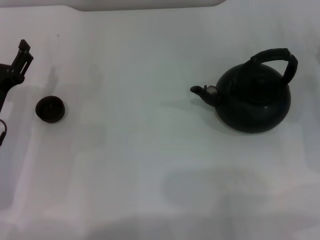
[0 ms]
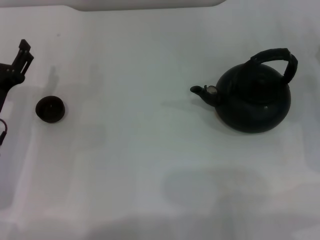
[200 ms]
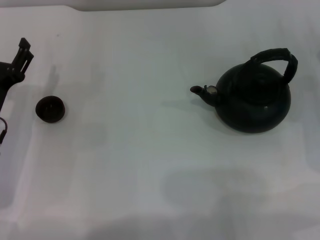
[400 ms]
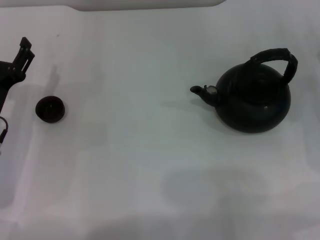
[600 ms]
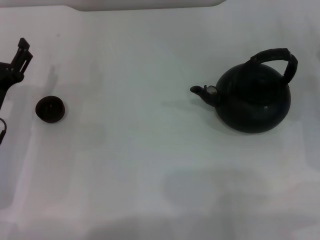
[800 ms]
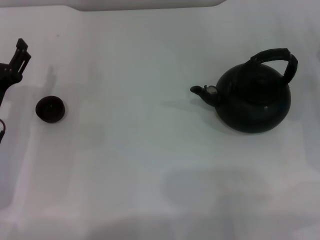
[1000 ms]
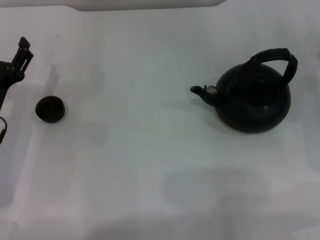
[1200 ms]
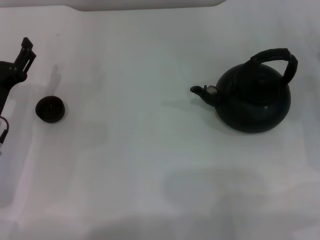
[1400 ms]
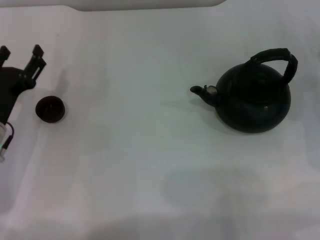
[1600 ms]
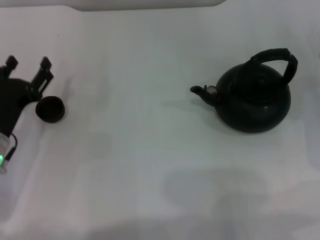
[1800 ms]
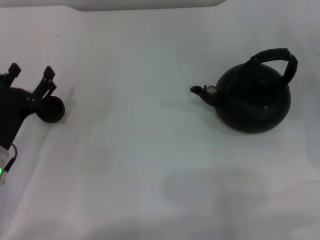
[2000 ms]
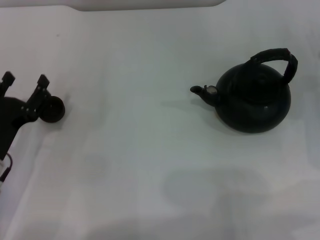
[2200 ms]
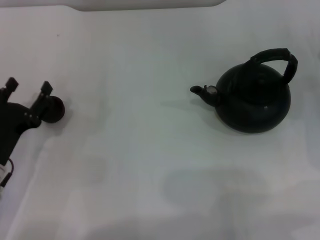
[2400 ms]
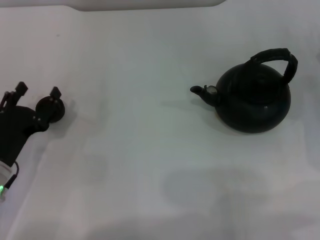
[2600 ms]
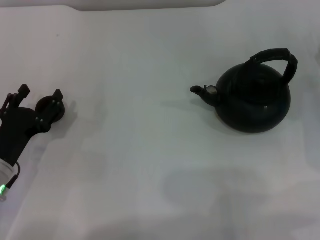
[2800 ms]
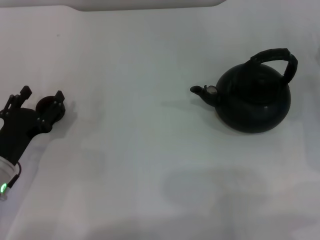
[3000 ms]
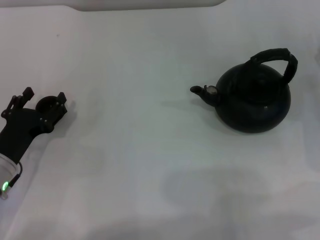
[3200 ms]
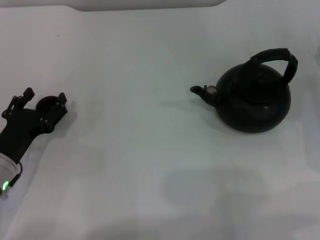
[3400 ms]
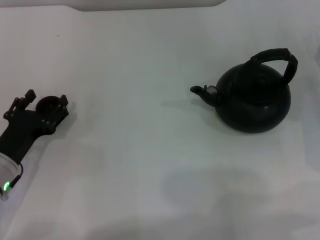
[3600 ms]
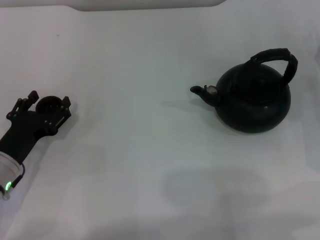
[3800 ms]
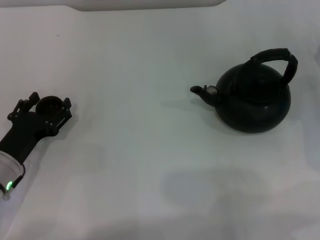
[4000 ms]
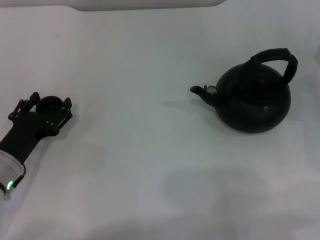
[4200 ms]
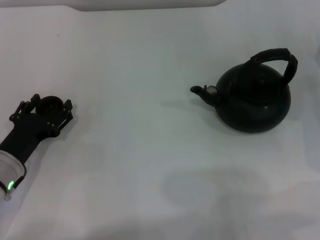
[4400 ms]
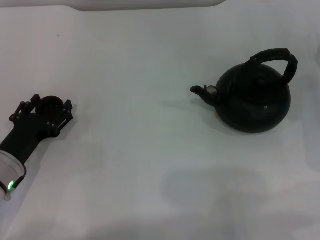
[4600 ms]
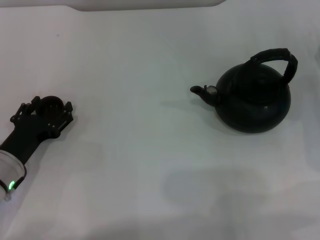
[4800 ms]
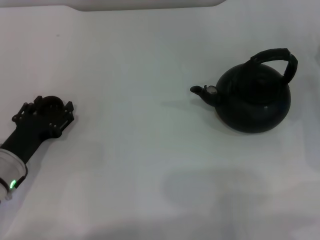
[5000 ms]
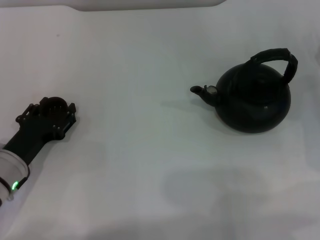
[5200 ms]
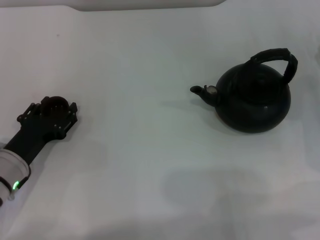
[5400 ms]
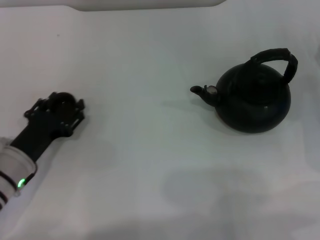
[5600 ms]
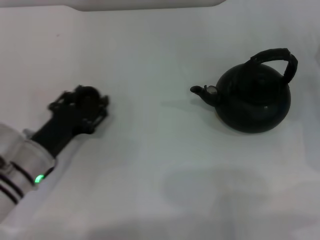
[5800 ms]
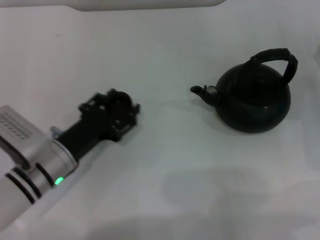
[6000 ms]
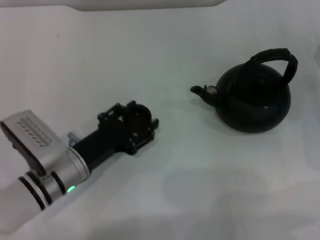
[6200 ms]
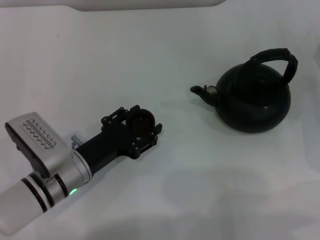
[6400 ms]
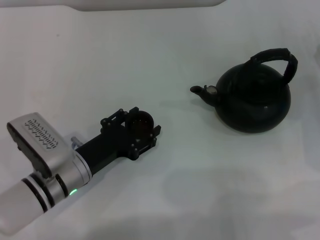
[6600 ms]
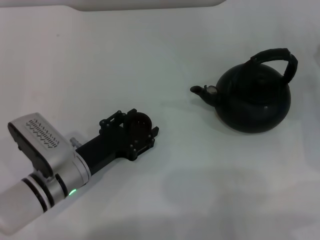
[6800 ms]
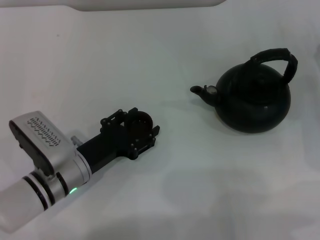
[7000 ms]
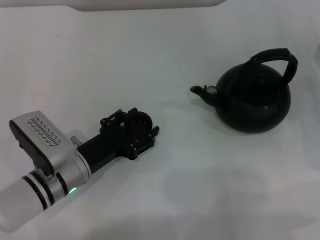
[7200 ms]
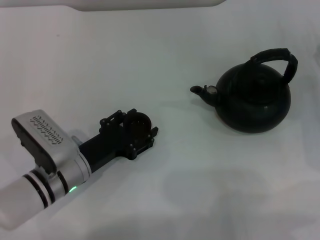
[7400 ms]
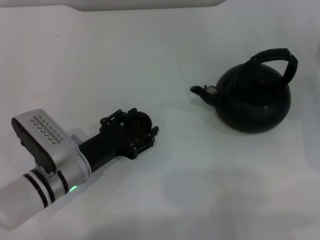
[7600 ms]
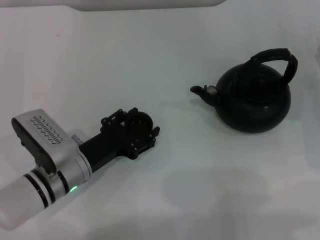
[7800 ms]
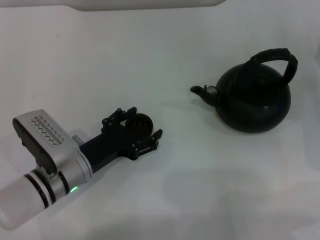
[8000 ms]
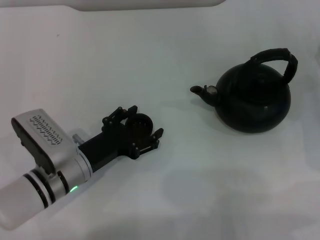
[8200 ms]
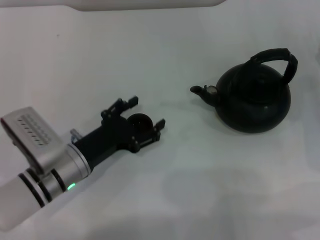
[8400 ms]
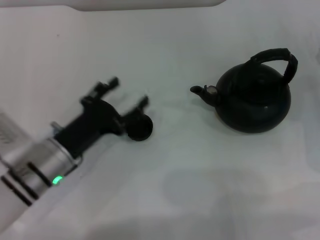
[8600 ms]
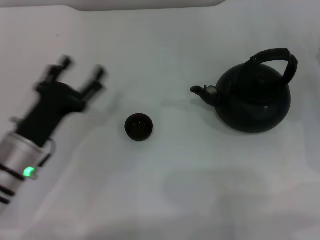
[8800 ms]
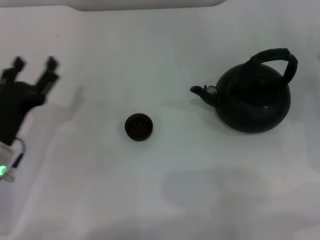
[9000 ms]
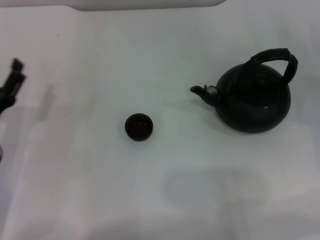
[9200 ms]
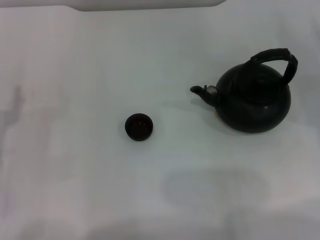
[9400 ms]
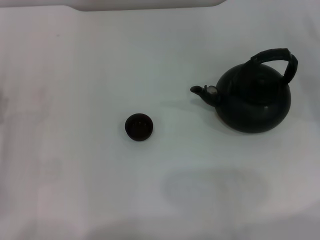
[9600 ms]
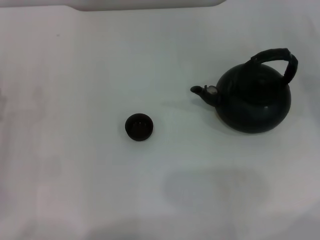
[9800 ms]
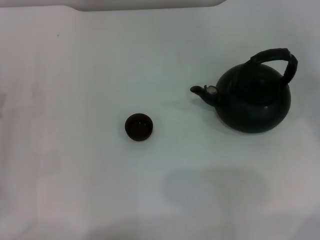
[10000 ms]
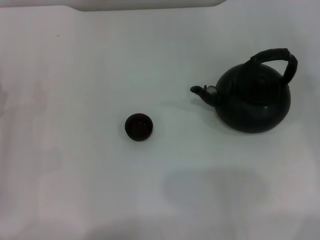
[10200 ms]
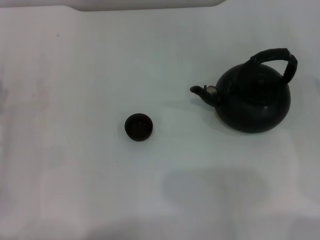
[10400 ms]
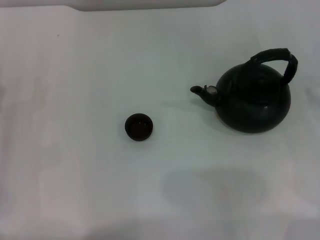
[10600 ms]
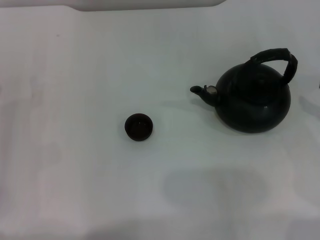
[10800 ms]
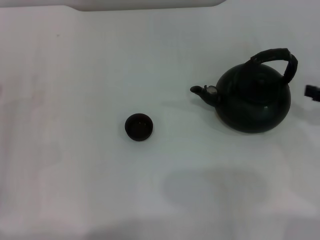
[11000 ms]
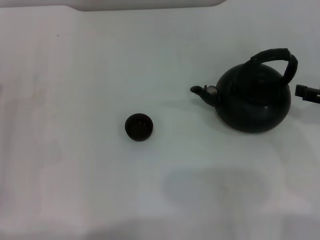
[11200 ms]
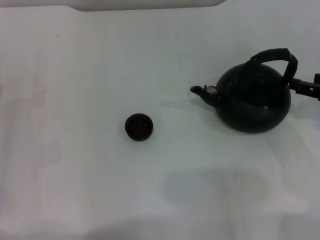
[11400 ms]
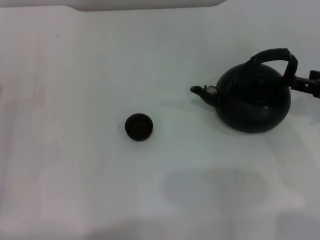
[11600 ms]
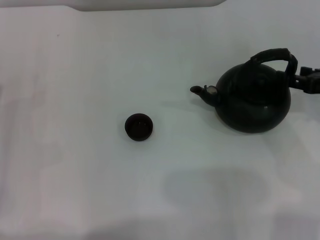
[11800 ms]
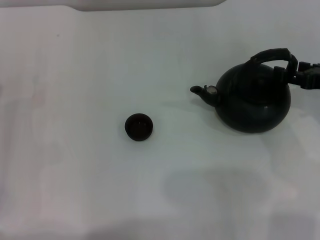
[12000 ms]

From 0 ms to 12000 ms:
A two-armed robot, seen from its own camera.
Task of the whole recording: Grasp the handle of the teapot with one hand and pour tea into the teacup.
Step, from 0 ms to 5600 ms: Pick up the teacup with the left gripper.
Step, from 5800 ms to 8200 ms: Place the teacup in the center of view with the left gripper.
From 0 ms to 1600 ms: Both grippers stay about where they are.
From 1600 ms to 3000 ms: The left gripper changes place by roughly 5 cm.
From 3000 ms to 4400 ms: The grippers make only small movements.
From 4400 ms to 6000 ms: The left gripper travels to the right by some 5 cm, and closes up.
From 6000 ms to 7600 ms: The grippers stay close to where they were, moving slightly.
From 7600 ms to 9000 ms: The left gripper heads to the left, covering some 10 cm, and opens its fingers.
From 9000 ms to 10400 ms: The left gripper moves to the left, approximately 5 cm.
From 10400 ms to 12000 ms: The right gripper travels to the left by about 5 cm.

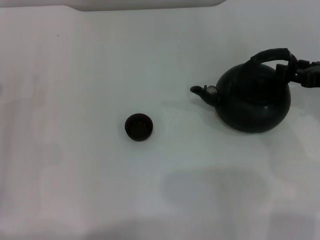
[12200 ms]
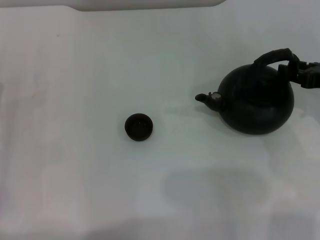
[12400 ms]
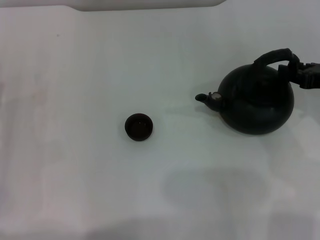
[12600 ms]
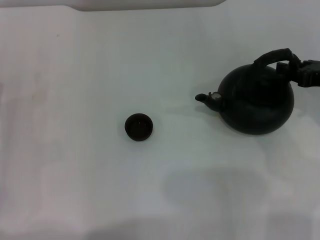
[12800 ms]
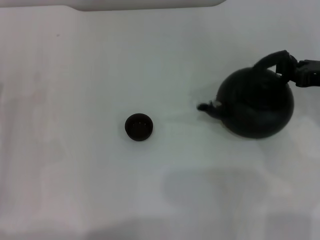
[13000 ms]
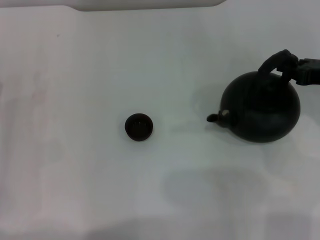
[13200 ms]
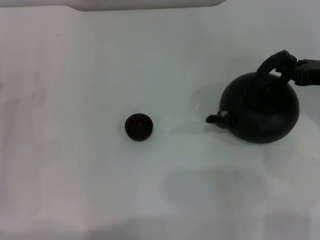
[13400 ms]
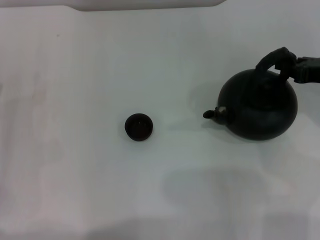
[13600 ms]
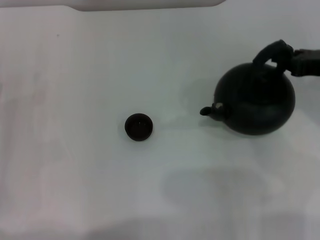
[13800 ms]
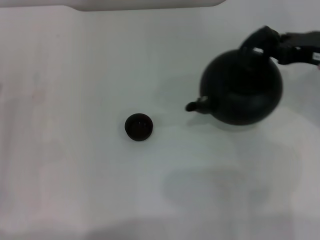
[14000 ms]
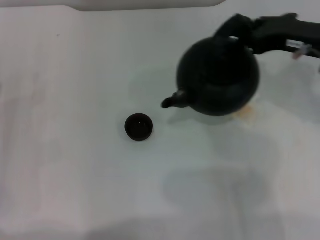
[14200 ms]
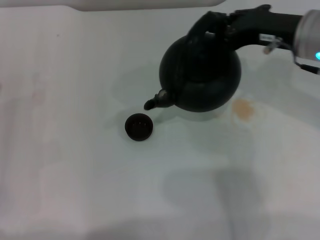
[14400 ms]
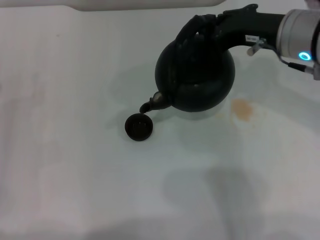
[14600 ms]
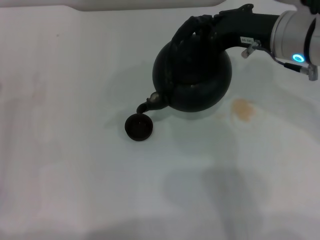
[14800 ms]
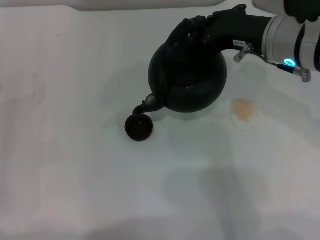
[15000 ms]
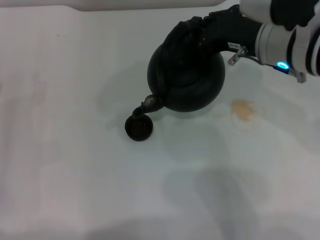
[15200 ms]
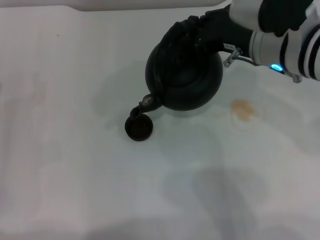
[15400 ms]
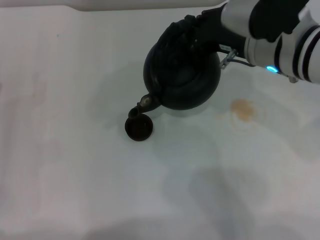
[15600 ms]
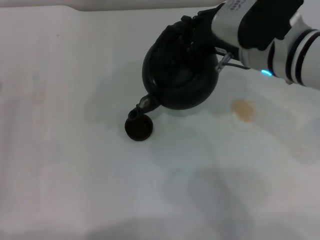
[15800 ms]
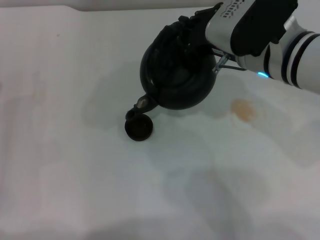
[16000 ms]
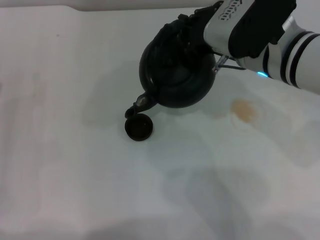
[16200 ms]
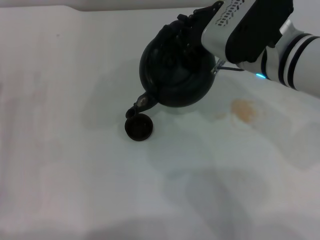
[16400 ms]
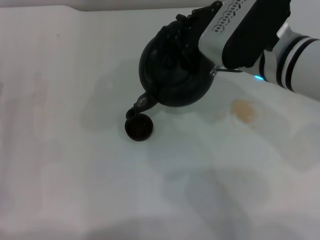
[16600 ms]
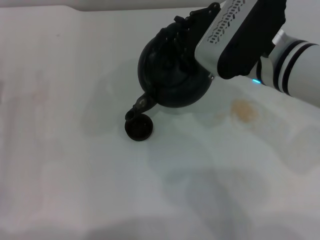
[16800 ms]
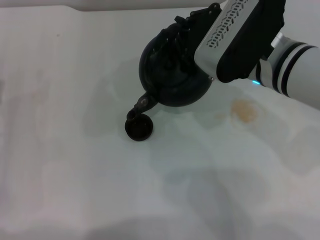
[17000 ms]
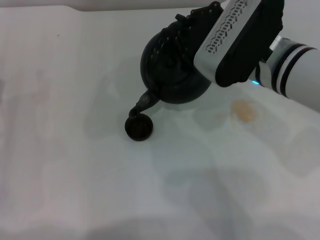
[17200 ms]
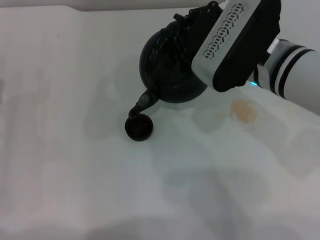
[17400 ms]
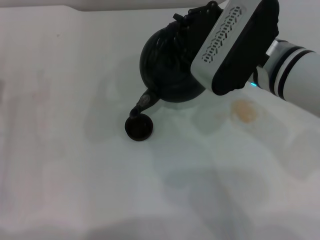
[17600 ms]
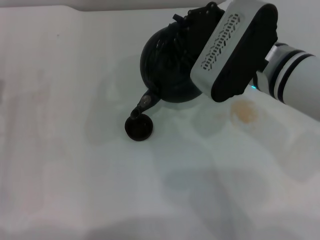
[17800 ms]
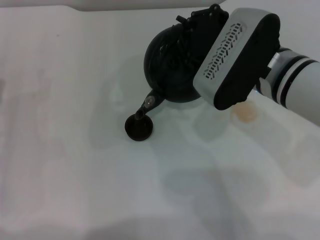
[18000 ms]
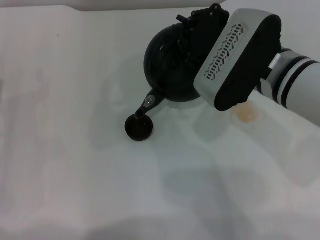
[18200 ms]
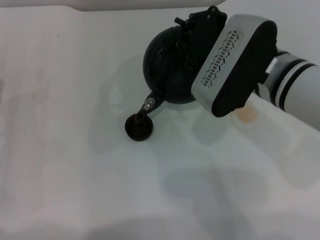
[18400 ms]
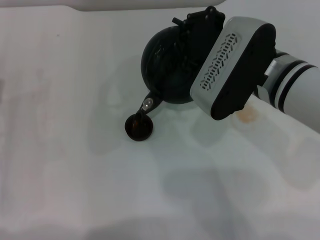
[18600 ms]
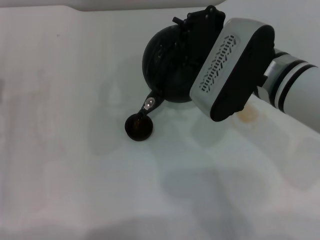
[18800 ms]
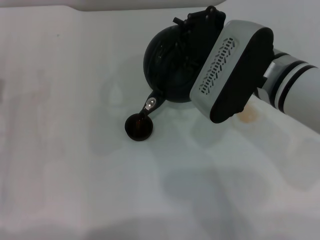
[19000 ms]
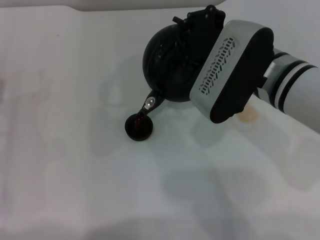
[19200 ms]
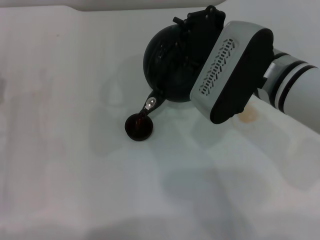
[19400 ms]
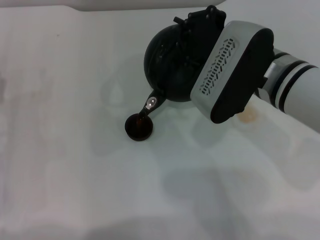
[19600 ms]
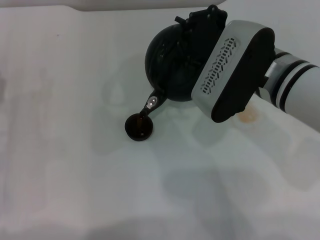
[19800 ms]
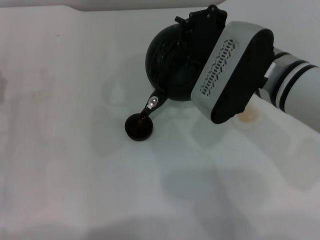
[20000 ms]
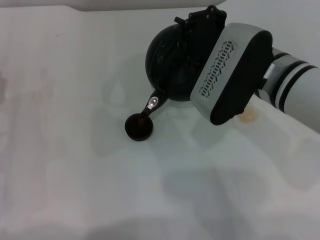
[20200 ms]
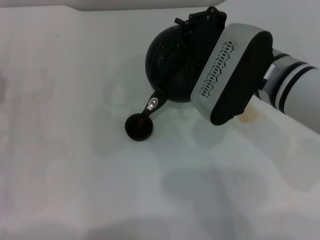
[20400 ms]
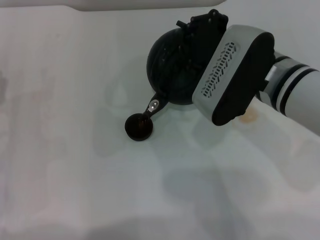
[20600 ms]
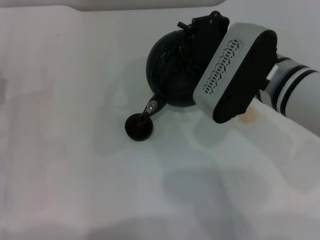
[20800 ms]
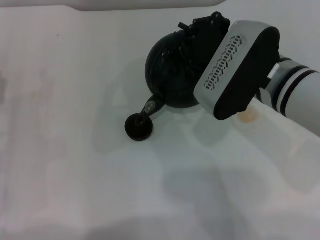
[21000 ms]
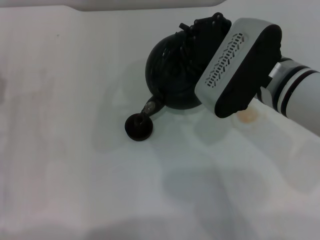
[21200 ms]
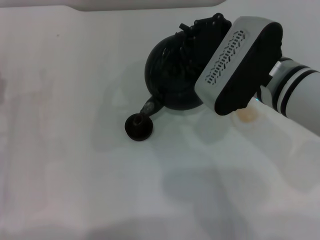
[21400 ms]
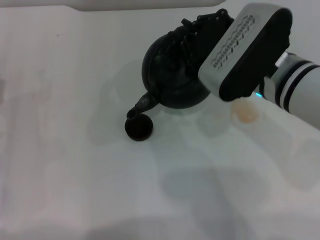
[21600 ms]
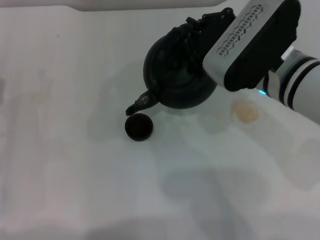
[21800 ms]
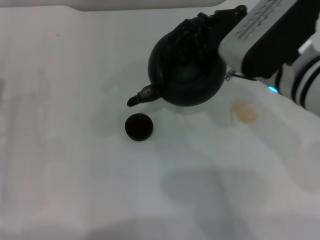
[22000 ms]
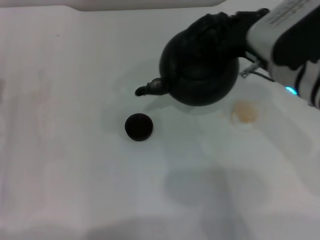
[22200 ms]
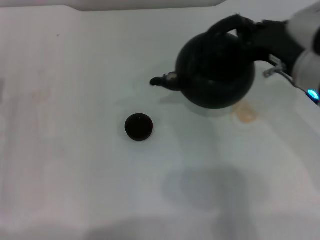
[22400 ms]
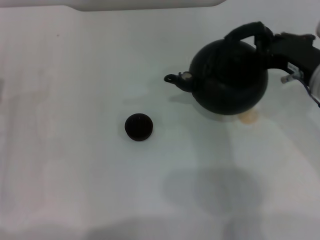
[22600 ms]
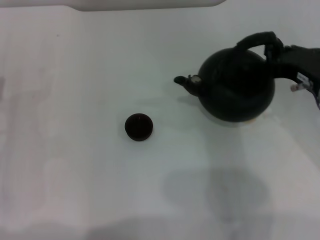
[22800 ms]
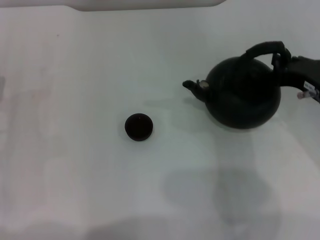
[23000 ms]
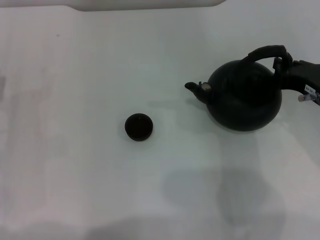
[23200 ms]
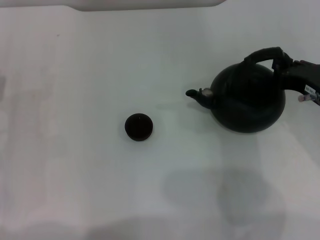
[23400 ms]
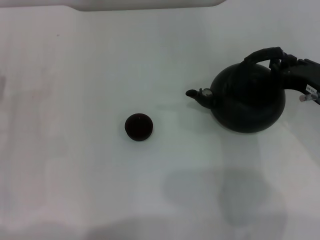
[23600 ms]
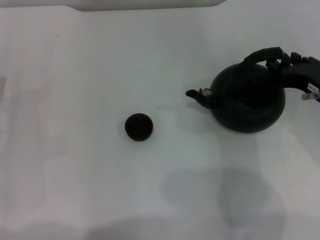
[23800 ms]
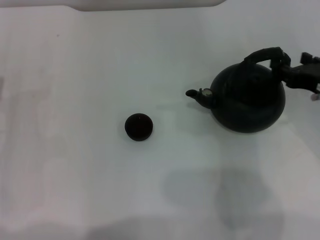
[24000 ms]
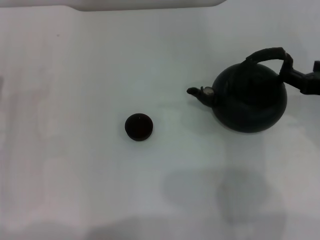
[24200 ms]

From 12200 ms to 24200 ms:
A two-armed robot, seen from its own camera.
Task of the whole recording: Grasp the handle of the teapot with one hand and pour tea into the teacup.
Step, from 13800 ms to 21800 ms: Pour tea into the teacup with the right gripper.
From 12200 ms to 13800 ms: The right gripper closes its fingers.
From 13800 ms to 15200 ms: The right gripper is displaced to the left by approximately 15 cm.
From 15200 ms to 16600 ms: The grippers stay close to where they were, moving slightly.
From 16600 ms to 19800 ms: The grippers stay close to where they were, moving slightly.
From 19800 ms to 21200 ms: There are only small adjustments of the grippers.
From 21200 ms to 22600 ms: The right gripper travels to the right by some 10 cm.
From 22600 ms to 24200 ms: The right gripper ends up approximately 5 cm from where it was, and opens its fingers.
